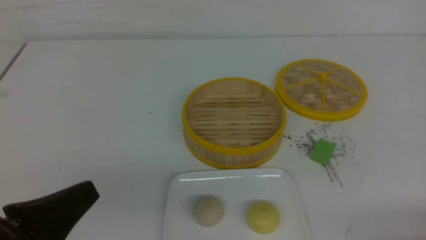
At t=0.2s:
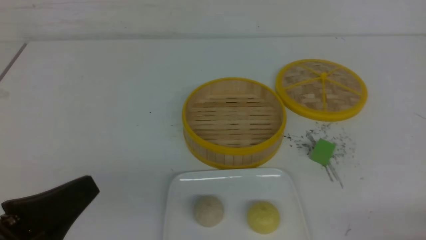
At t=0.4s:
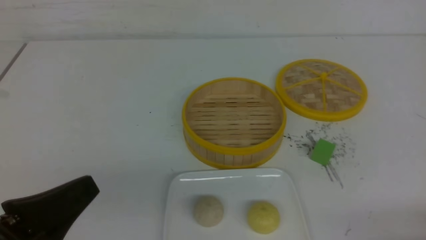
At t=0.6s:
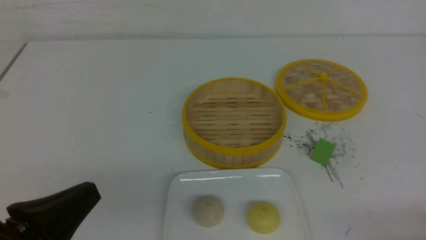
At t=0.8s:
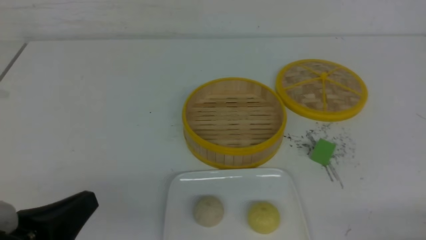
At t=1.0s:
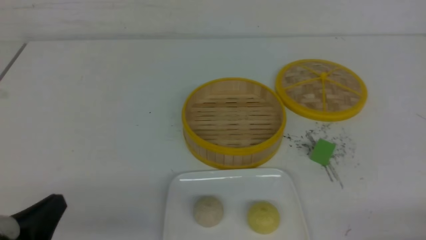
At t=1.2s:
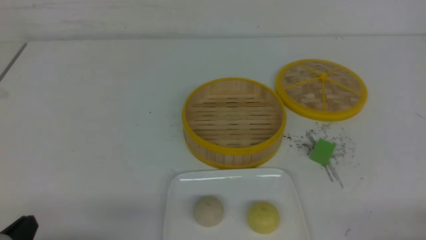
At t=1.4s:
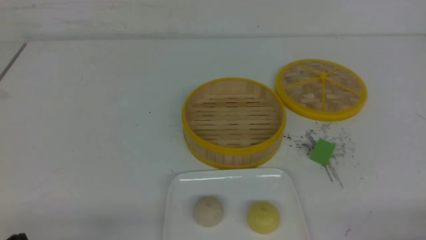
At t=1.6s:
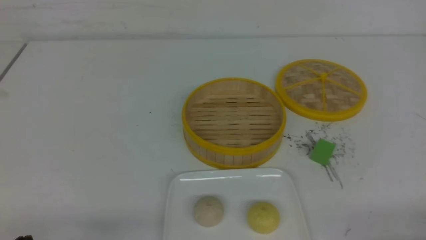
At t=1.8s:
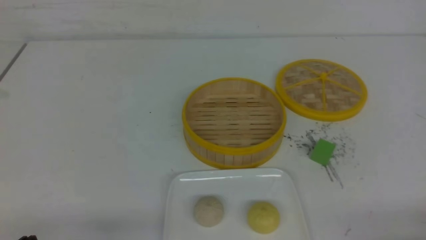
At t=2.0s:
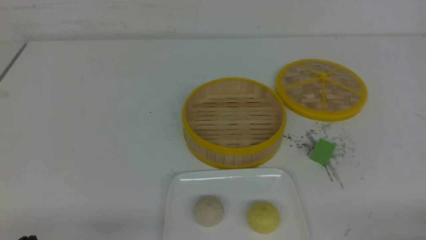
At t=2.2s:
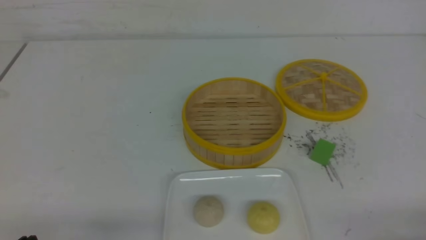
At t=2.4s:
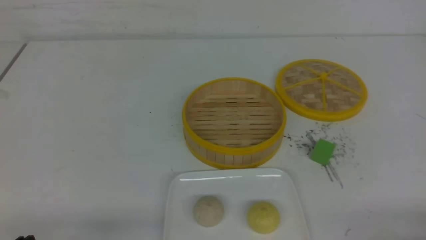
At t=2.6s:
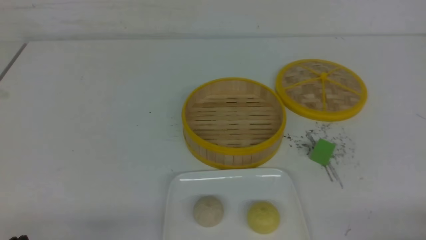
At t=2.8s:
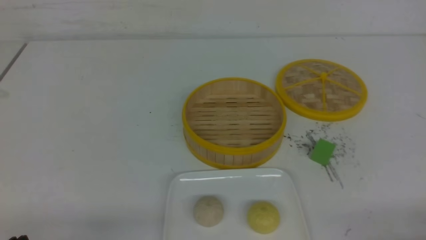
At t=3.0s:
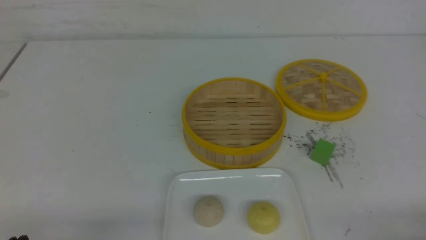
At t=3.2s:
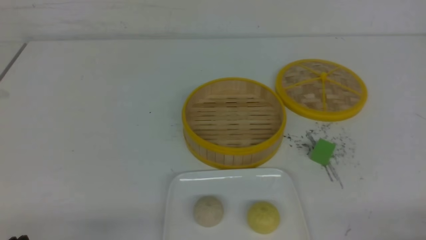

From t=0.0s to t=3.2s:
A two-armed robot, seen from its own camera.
From t=0.0s to t=1.6s: The left gripper moves downward, some 10 cm.
From t=1.6s to t=3.2s: The two grippers keep their place.

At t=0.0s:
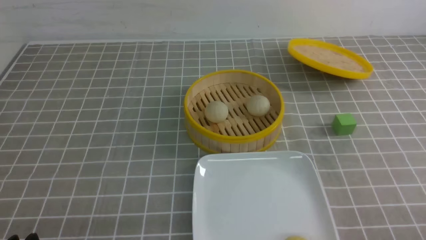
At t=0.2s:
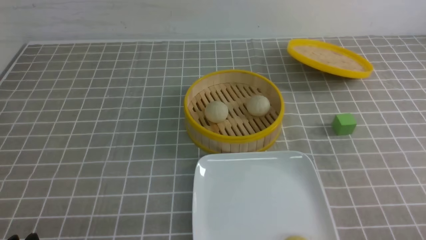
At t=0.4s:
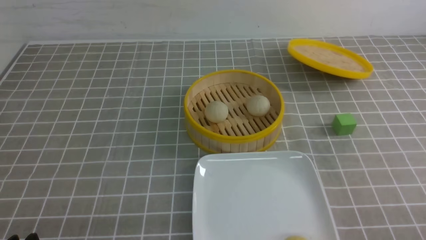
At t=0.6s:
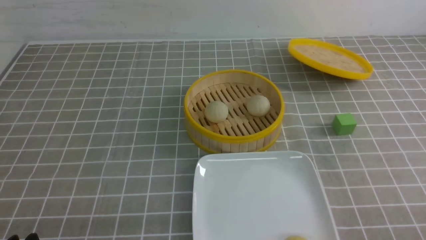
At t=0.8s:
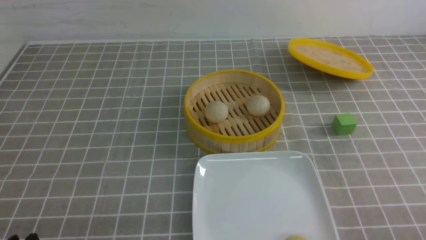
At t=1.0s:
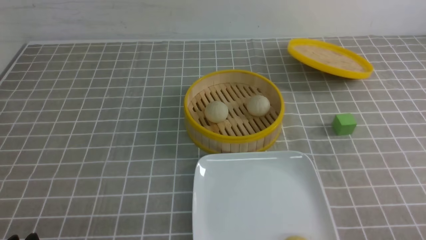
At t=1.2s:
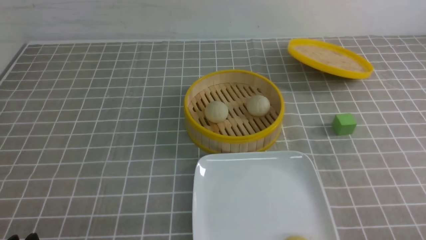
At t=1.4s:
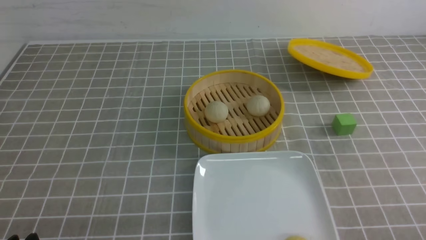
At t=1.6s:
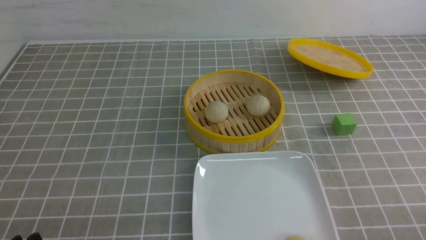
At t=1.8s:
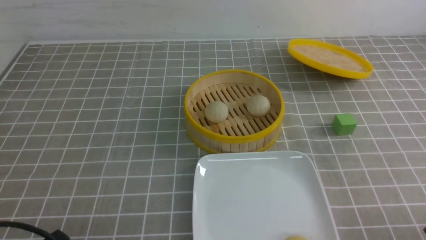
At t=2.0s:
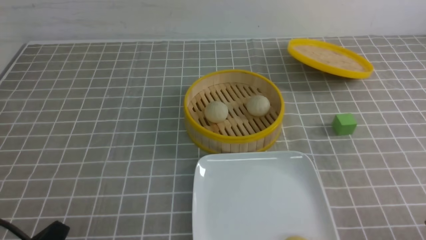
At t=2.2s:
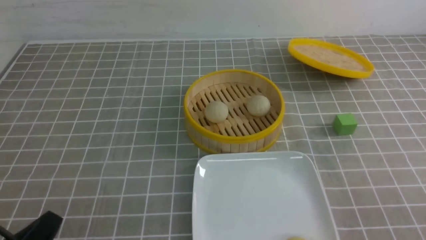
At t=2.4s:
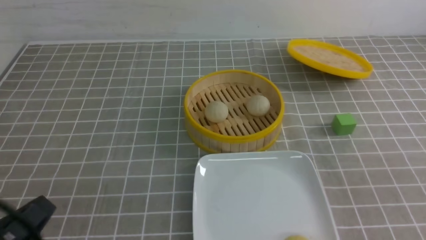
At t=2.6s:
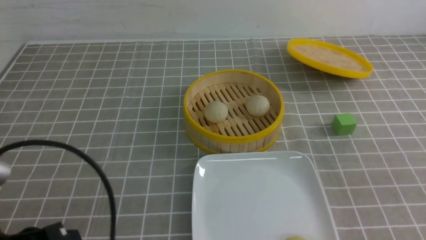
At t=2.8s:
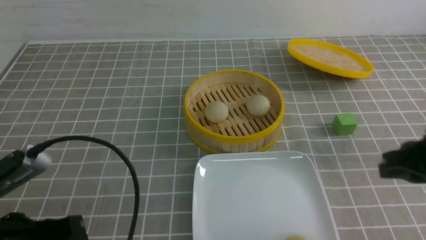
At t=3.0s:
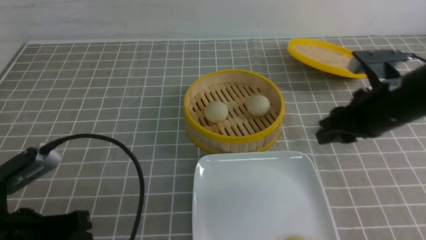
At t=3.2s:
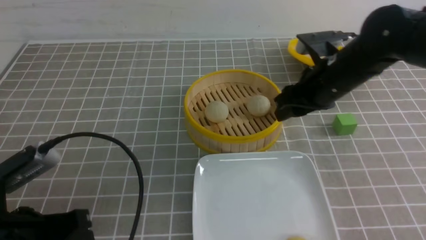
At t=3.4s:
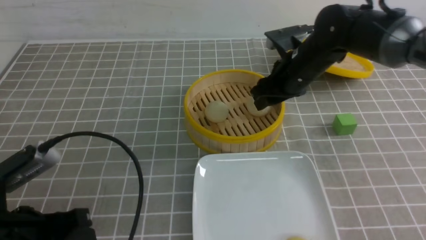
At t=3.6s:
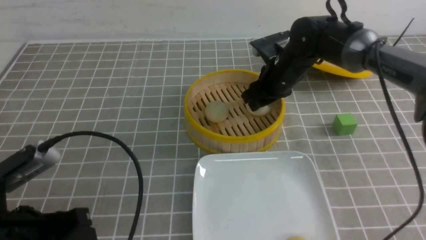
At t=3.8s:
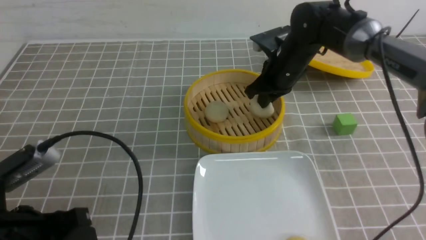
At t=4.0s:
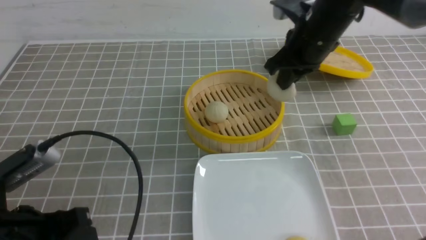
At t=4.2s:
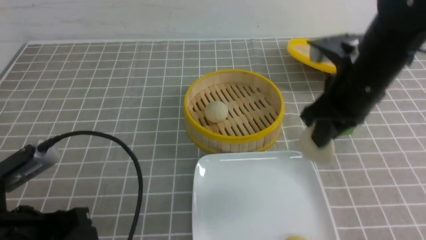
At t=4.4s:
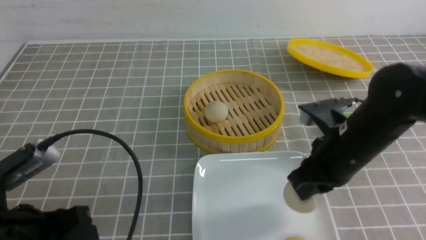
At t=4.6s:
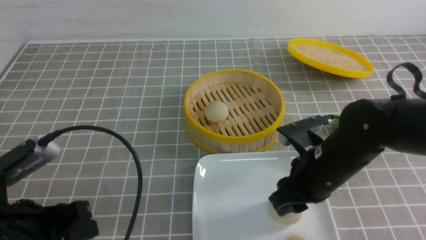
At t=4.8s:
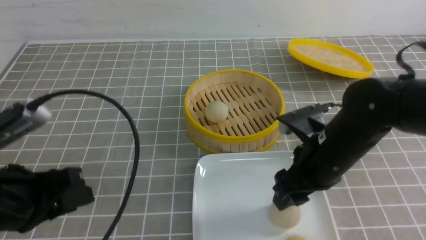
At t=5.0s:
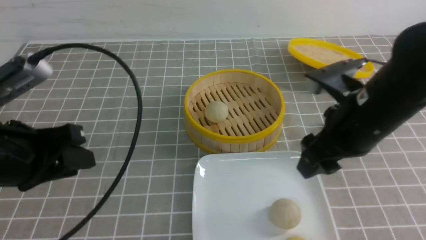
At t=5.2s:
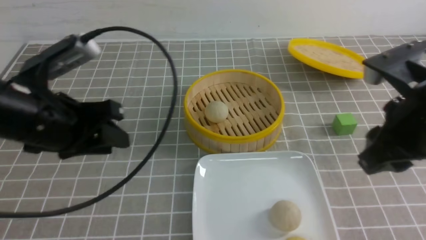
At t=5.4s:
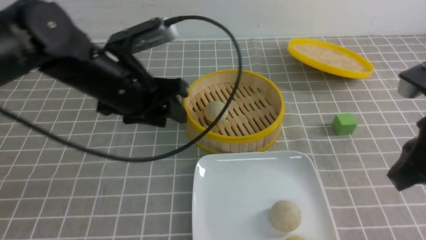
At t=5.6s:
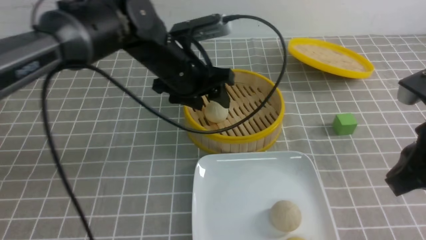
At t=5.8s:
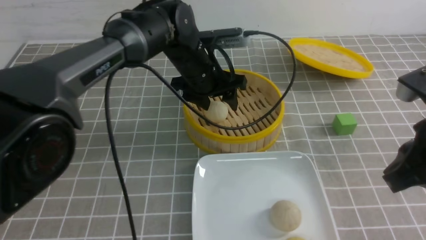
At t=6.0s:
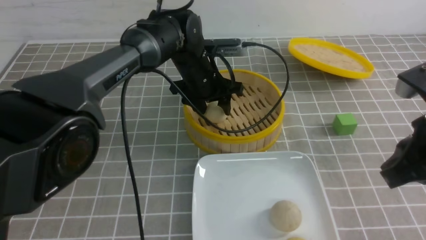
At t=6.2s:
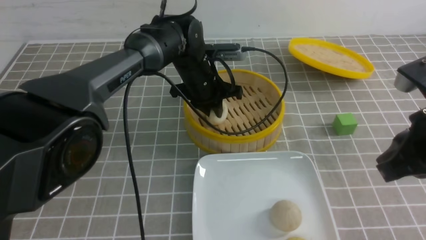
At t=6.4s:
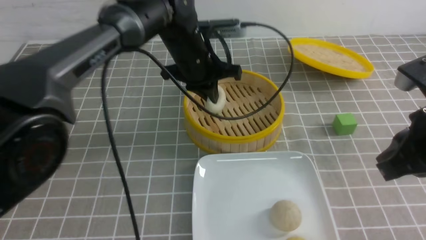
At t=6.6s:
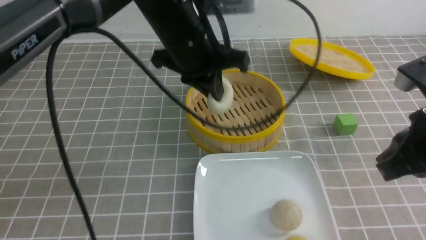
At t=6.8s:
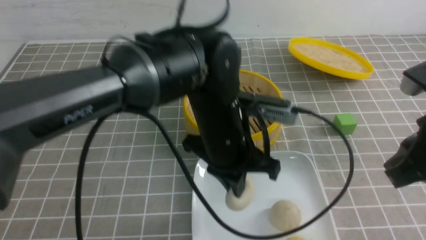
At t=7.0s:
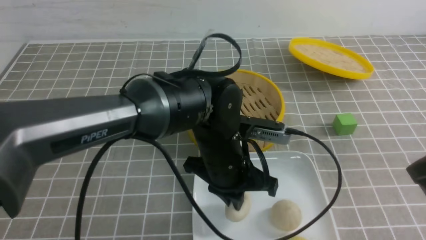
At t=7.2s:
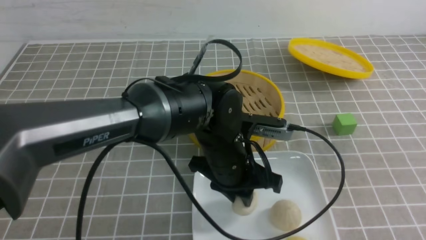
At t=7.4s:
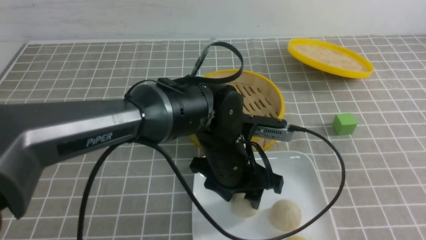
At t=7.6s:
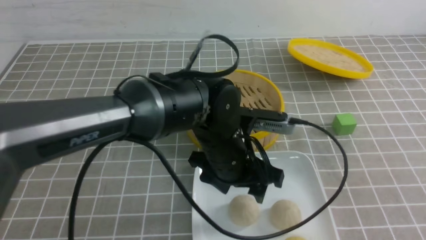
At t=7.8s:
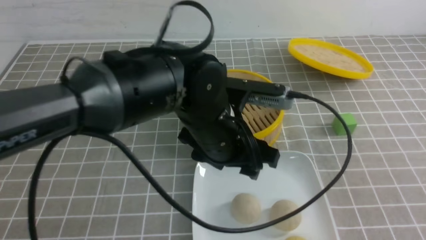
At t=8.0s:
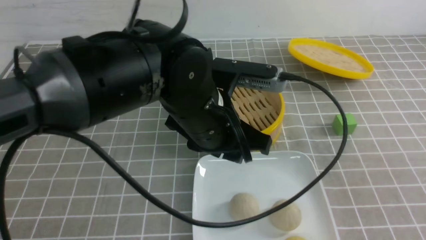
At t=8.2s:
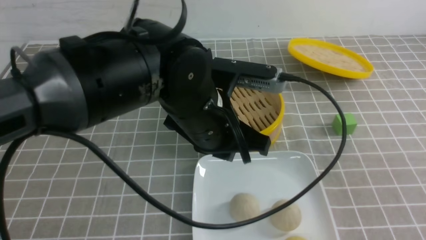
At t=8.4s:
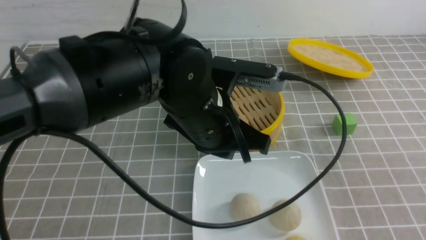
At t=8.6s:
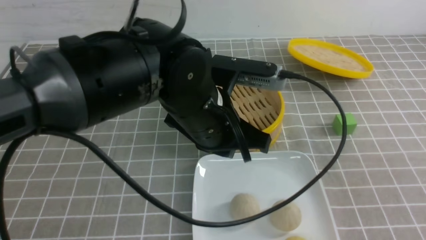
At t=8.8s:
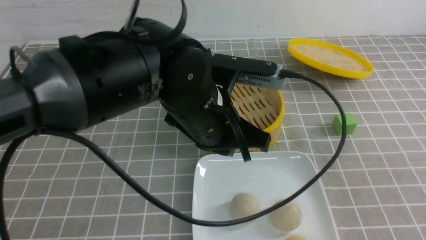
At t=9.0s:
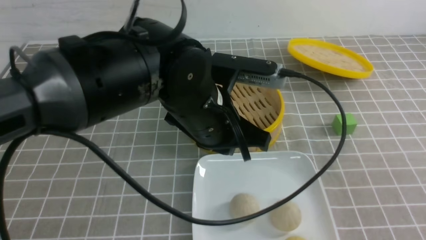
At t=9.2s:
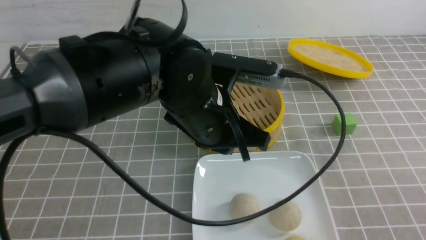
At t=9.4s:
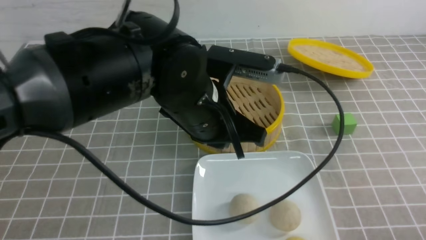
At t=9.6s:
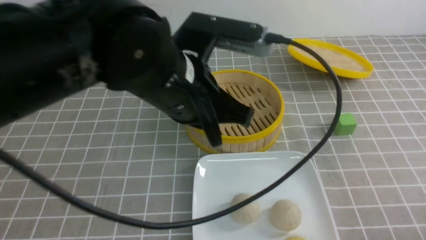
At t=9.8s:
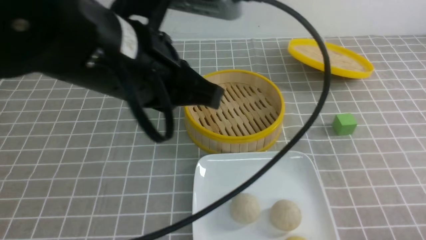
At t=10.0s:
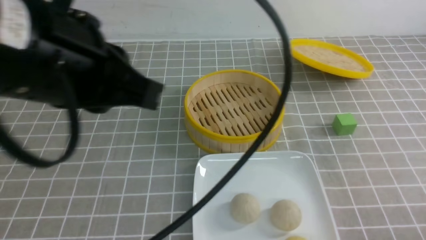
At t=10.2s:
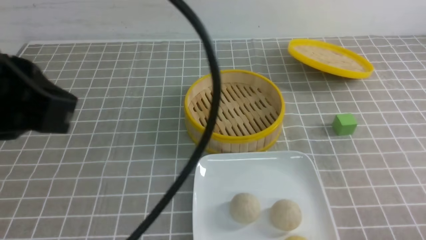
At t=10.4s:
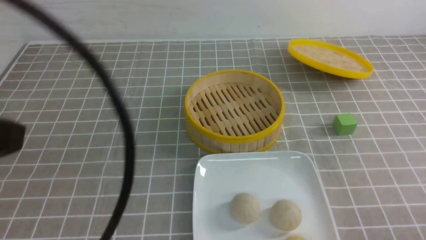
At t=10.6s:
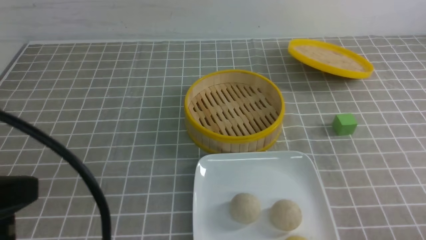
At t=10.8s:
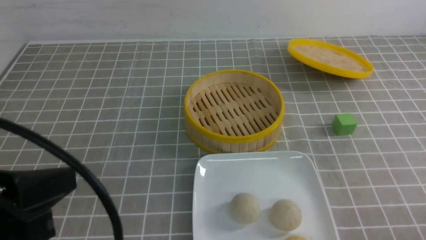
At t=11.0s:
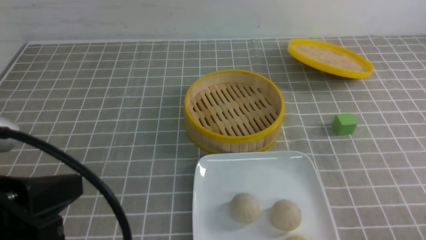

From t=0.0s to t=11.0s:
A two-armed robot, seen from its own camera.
Step, from t=0.0s to t=3.8s: use the right arm to grab the steamed stuffed bun that is closest to it.
Step, from t=4.0s to t=4.6s: use the right arm to put the steamed stuffed bun into the plate.
Step, from t=5.0s to t=6.2s: use the left arm to grab the steamed stuffed bun that is closest to it.
Step, from t=6.4s to t=7.4s: use the left arm to put the steamed stuffed bun into the plate.
From t=1.6s to t=3.2s: The right gripper moves forward and to the left, roughly 35 cm, and closes and opens again, while the left gripper goes some 10 cm forward and upward.
From t=3.2s to t=4.8s: The right gripper goes approximately 10 cm backward, and closes and opens again. The left gripper ends up roughly 5 cm from where it was.
From t=4.8s to t=6.2s: The right gripper goes about 15 cm upward, to the right and backward, and closes up; the left gripper goes about 35 cm forward and to the right, and opens and closes again.
From t=6.2s to t=7.8s: The right gripper travels backward and to the right by some 15 cm; the left gripper moves backward, approximately 20 cm, and opens its fingers.
From t=7.8s to t=9.4s: The left gripper moves upward, some 5 cm, and closes; the right gripper goes about 15 cm downward.
From t=9.4s to t=11.0s: The left gripper moves to the left and backward, about 25 cm.

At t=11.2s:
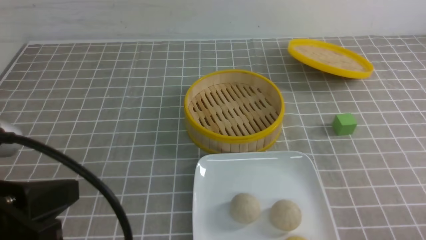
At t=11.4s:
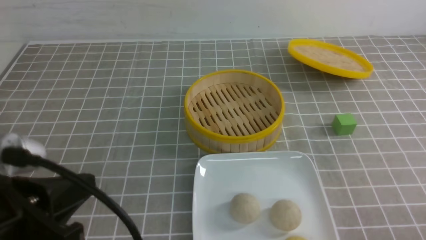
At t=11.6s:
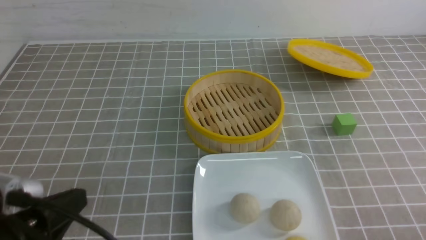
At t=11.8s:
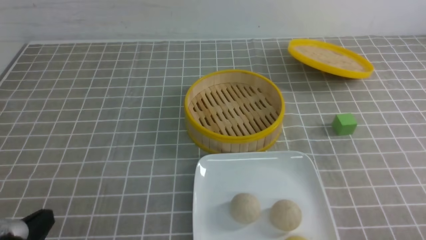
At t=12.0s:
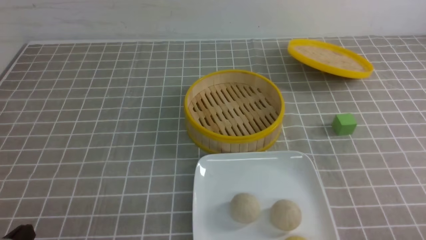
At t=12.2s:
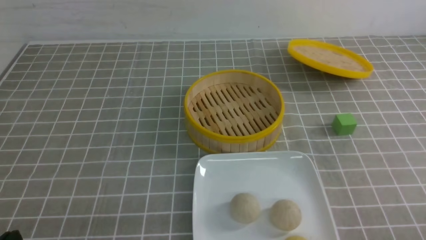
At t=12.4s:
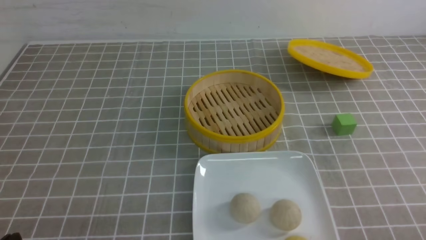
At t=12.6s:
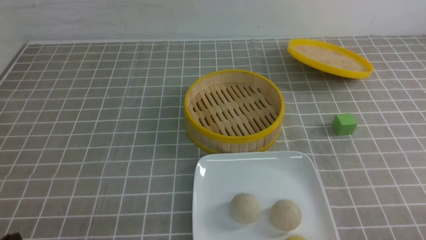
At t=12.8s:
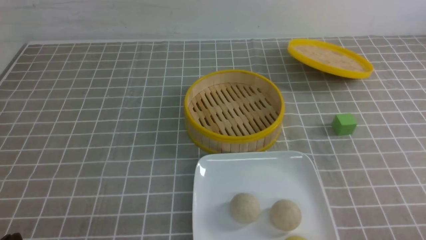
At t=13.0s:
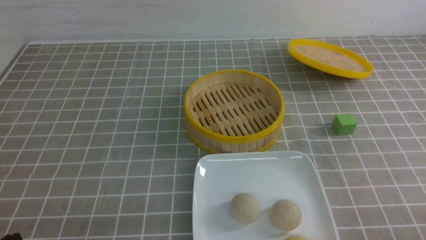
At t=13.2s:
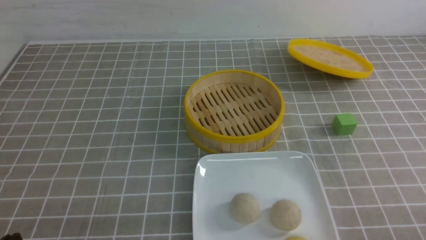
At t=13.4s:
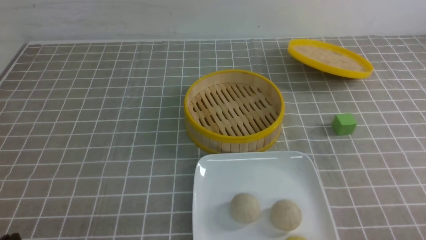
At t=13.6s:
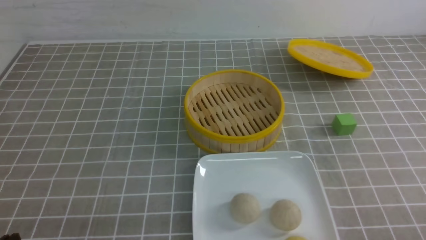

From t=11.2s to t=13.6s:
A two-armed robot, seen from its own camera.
From t=11.2s to t=12.4s: The left gripper travels downward and to the left by some 15 cm.
From t=12.4s to t=13.6s: The two grippers keep their place.
